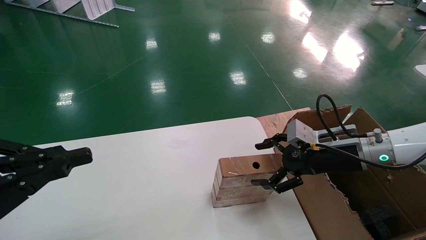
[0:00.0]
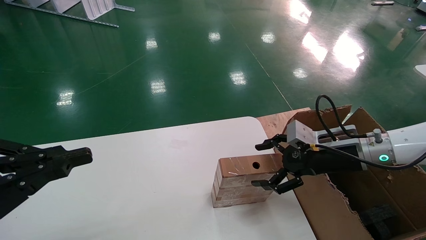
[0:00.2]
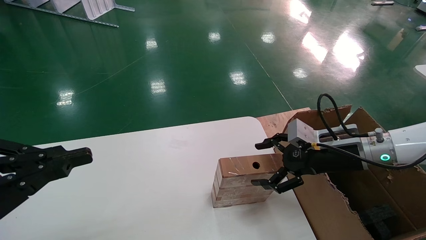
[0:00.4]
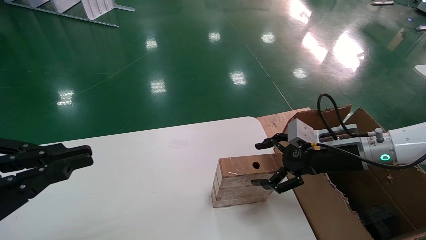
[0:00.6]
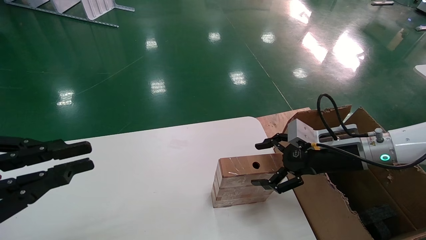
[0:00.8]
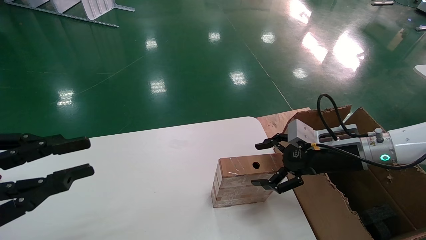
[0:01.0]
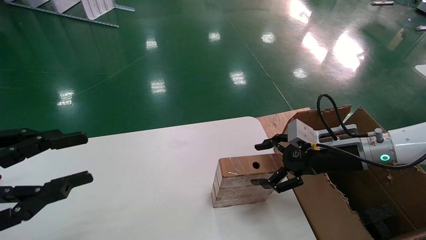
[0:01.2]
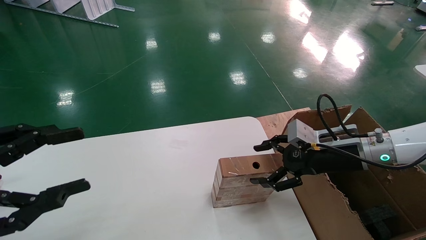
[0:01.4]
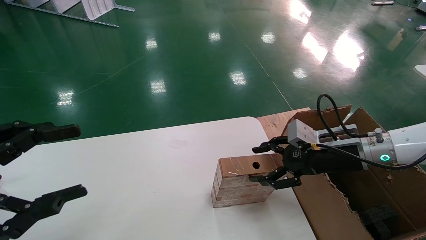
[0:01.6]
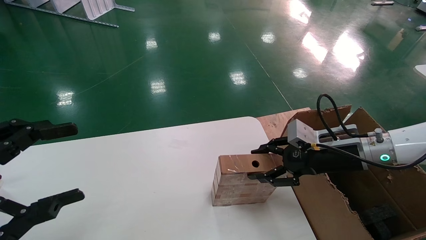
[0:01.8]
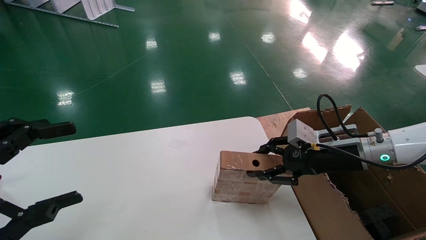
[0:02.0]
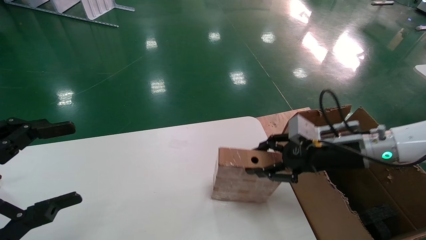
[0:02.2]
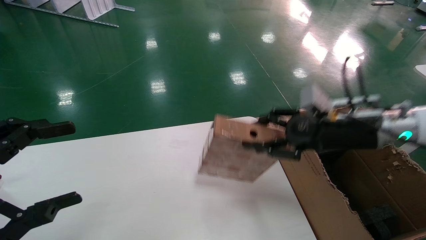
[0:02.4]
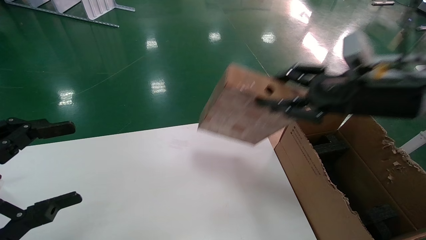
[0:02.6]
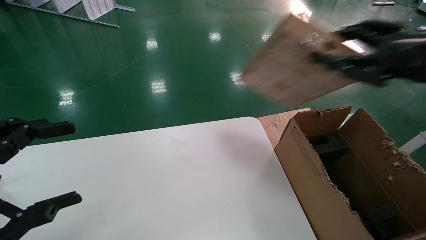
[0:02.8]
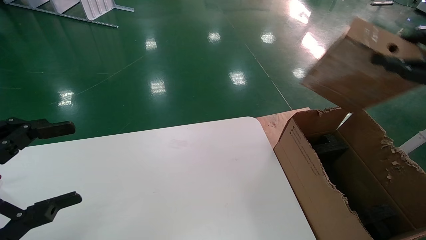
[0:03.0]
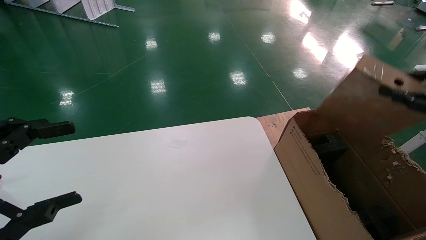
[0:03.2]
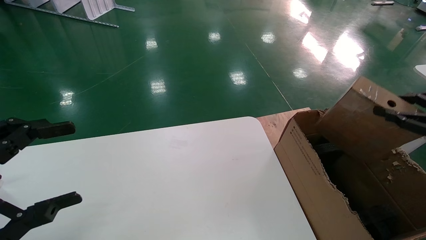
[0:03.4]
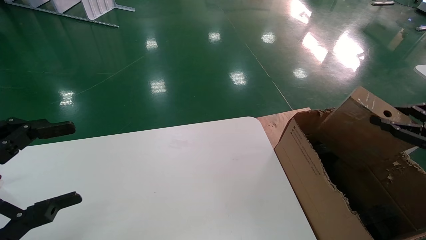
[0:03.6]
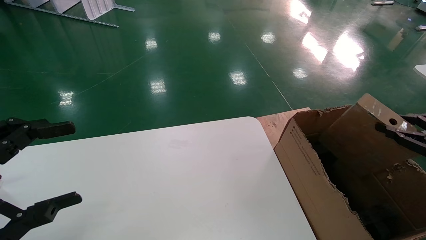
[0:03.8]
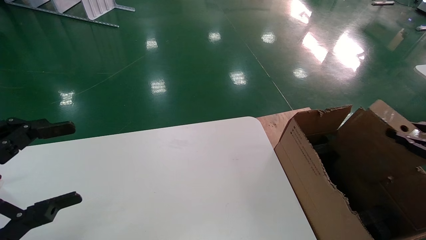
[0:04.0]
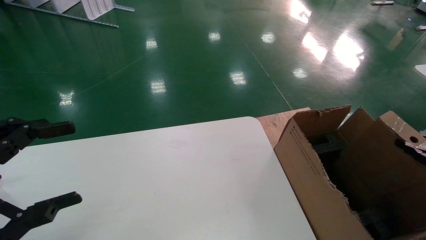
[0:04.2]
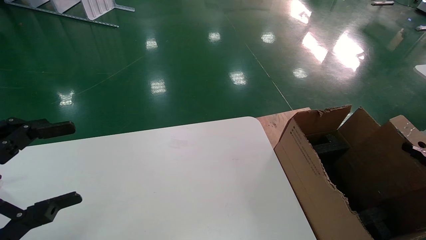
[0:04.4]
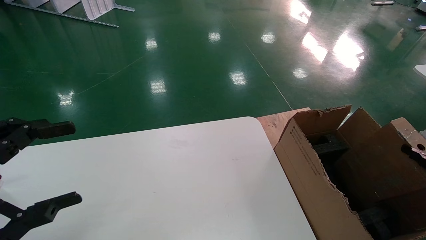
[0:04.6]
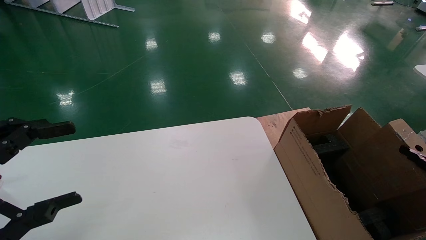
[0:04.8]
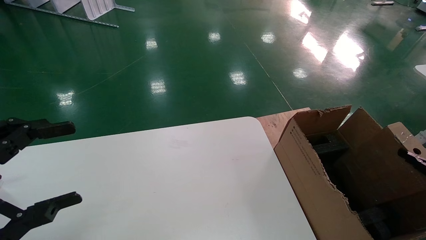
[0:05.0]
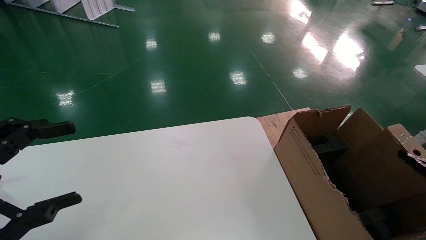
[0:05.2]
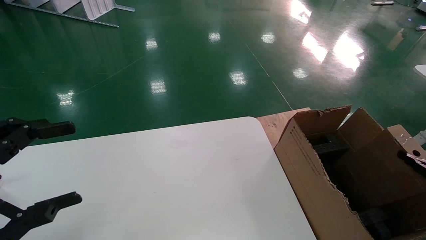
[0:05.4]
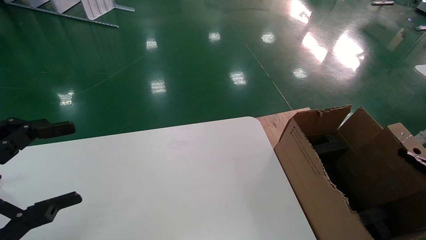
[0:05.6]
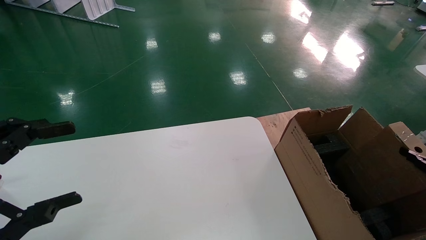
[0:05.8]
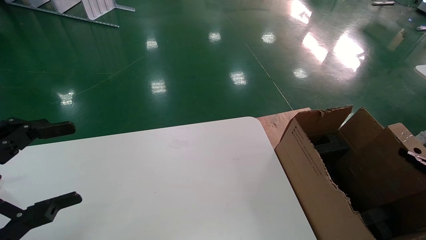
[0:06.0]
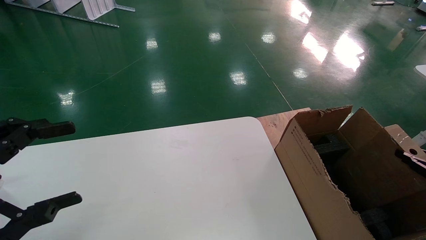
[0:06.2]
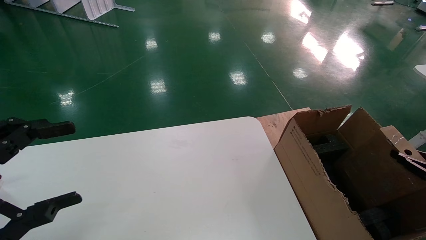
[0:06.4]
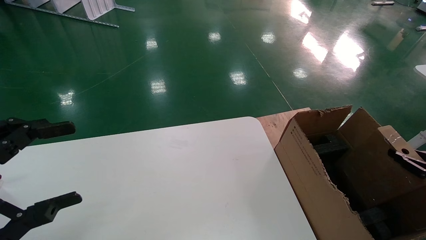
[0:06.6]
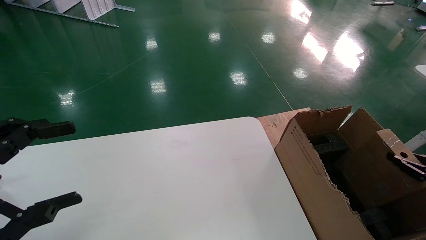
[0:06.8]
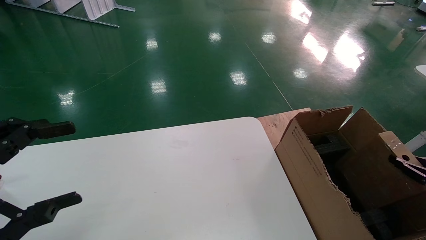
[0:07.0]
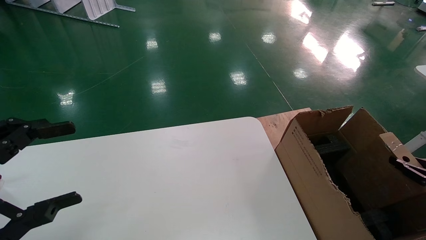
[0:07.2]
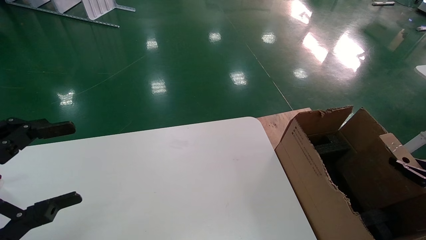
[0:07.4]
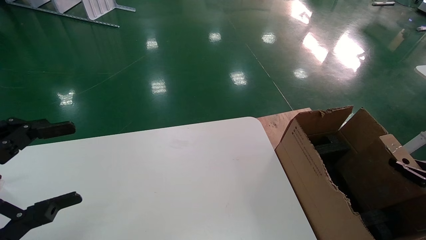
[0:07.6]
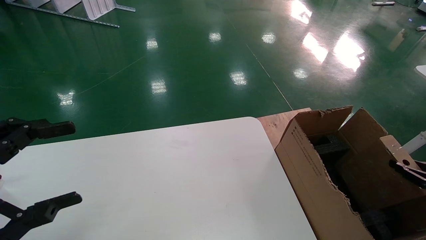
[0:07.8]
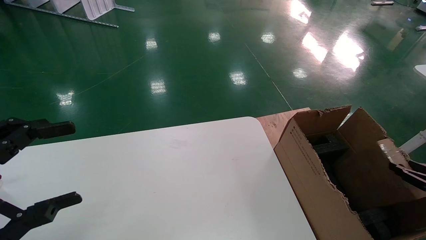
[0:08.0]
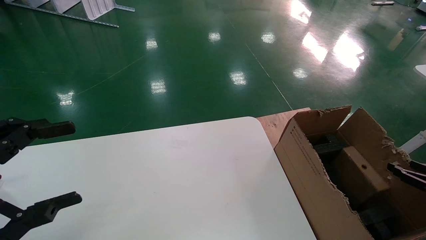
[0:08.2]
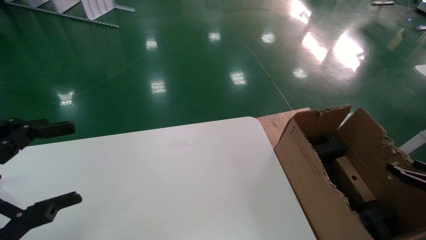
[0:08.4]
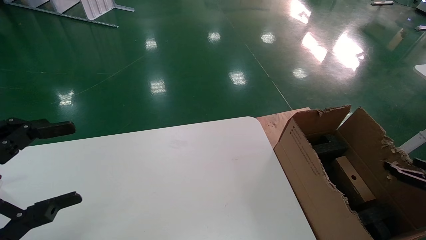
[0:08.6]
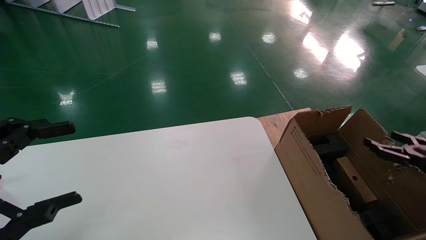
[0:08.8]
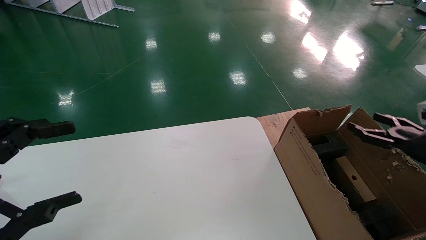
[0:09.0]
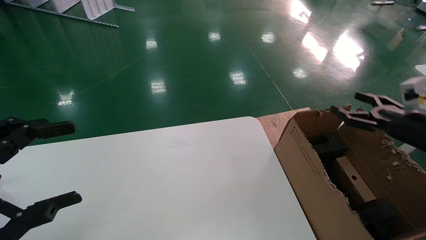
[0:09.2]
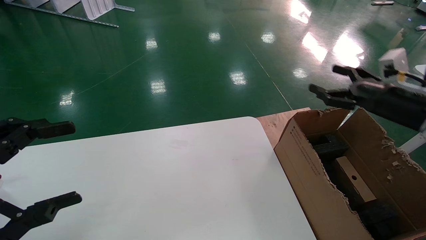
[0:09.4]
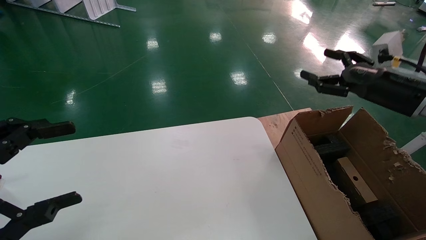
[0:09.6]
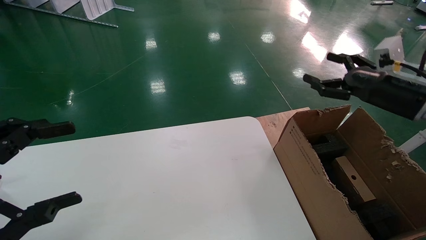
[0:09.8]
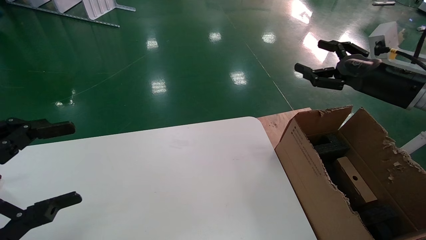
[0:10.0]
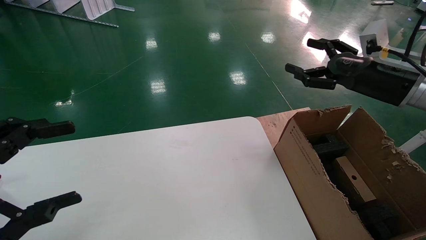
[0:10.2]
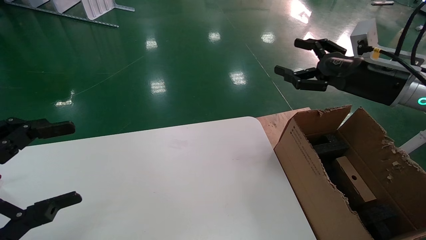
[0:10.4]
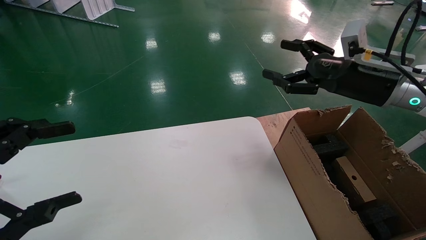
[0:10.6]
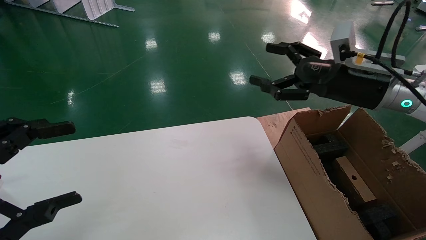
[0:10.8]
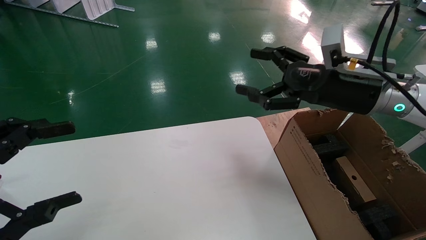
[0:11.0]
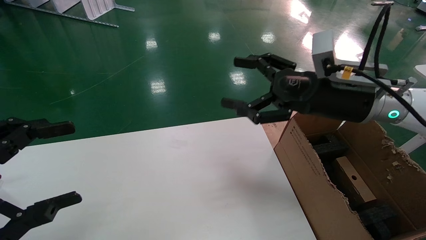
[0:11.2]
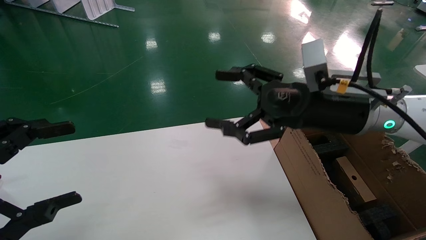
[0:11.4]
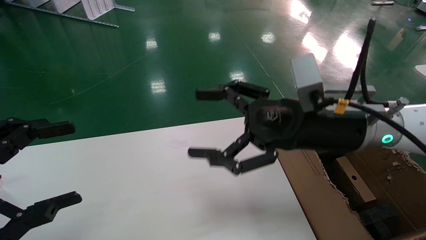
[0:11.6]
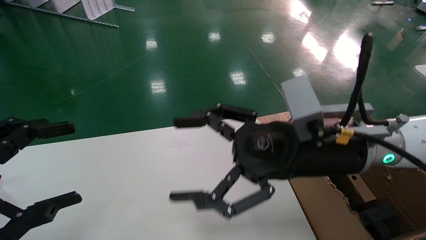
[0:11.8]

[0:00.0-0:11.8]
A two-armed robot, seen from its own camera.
Task of the whole recording: put the box on the table into the big box.
Step, 0:00.0 to 0:02.0: Pick up the mouse and the power cord paper box.
Step, 0:02.2 to 0:08.2: Place the mouse and the power cord paper box into the container.
0:00.0 to 0:01.4: The left gripper opens.
0:01.4 to 0:03.0: The left gripper opens. The right gripper heads to the right, upward and backward, covering approximately 25 cm, and closes up.
0:03.0 to 0:04.4: The right gripper shifts some 20 cm downward and to the right.
0:04.4 to 0:07.4: The grippers move only a little.
0:07.4 to 0:08.8: The right gripper ends up some 5 cm from where it was, and opens up.
0:08.8 to 0:10.4: The right gripper moves upward, to the left and forward, roughly 25 cm.
0:10.4 to 0:11.8: The right gripper moves to the left and backward, some 20 cm.
